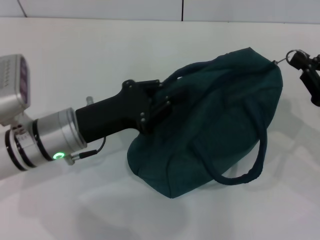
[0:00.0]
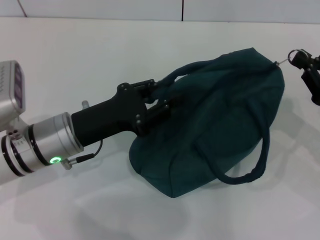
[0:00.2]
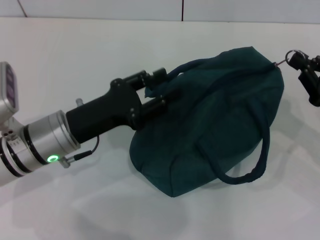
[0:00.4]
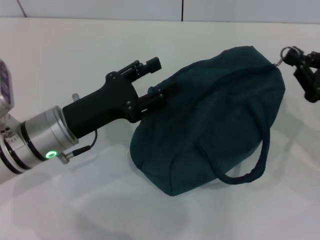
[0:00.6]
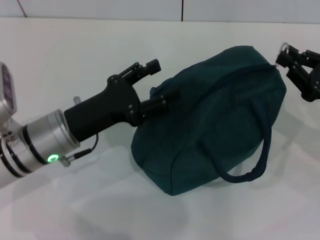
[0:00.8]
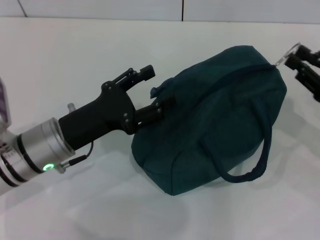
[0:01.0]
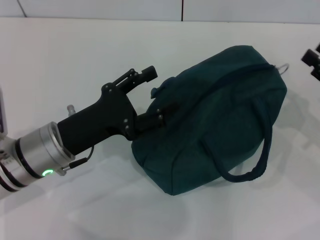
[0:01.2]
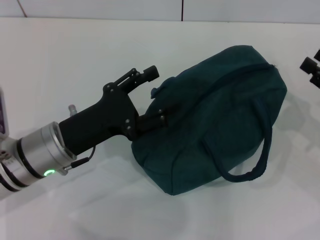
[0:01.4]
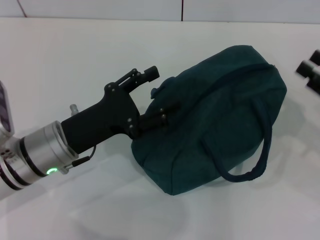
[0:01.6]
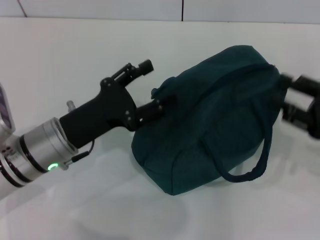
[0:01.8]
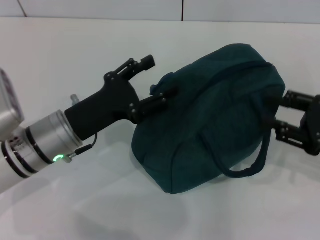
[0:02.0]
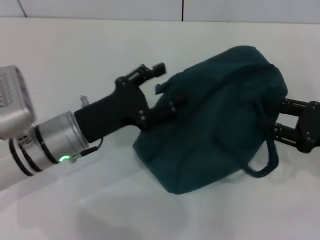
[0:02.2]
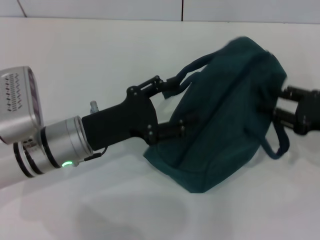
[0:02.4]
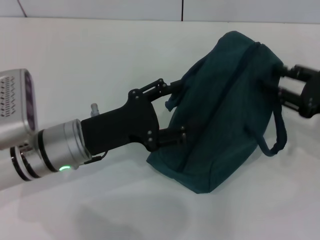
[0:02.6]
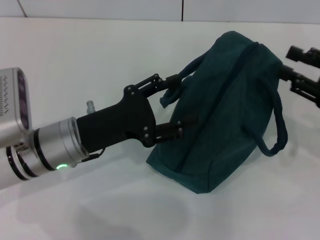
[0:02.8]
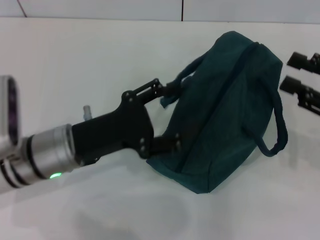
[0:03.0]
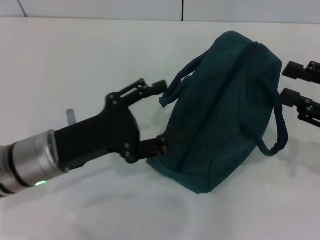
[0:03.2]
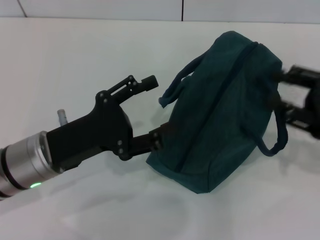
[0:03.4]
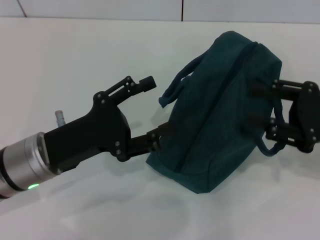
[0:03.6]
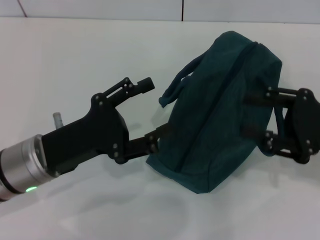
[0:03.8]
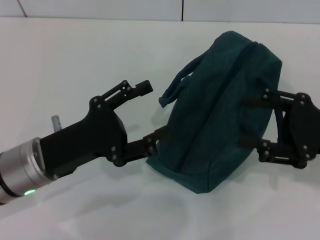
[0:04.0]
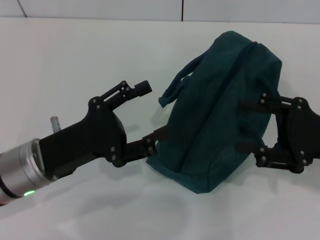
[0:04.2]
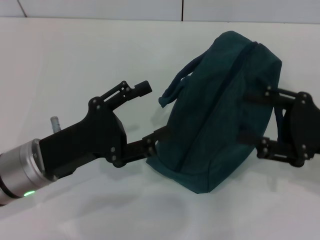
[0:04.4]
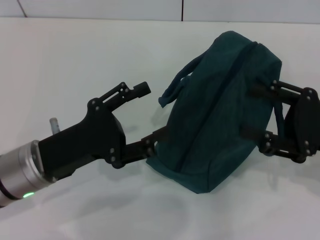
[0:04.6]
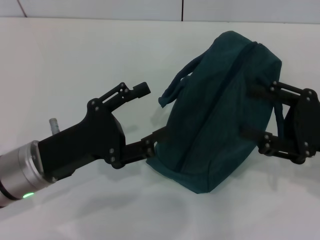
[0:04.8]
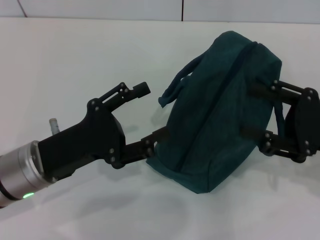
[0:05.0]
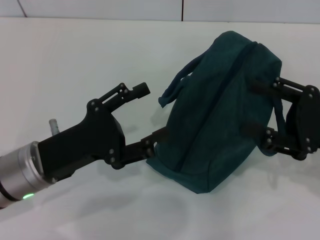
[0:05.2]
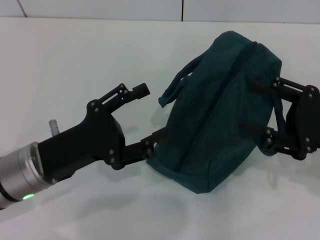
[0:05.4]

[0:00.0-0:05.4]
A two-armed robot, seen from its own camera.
Step, 0:00.8 to 0:02.6: Zip up the lunch bag with your right hand.
0:00.0 to 0:01.4: The right gripper opens. The left gripper opens up.
0:02.8 to 0:04.0: The right gripper ends up about 5 cm from where it was.
0:04.0 to 0:05.4: The grippers move only a little.

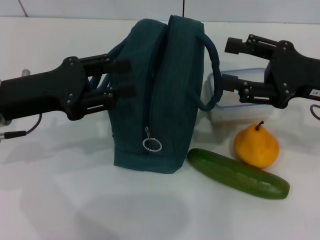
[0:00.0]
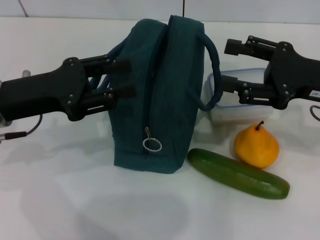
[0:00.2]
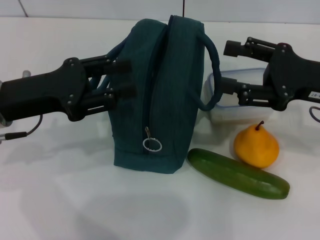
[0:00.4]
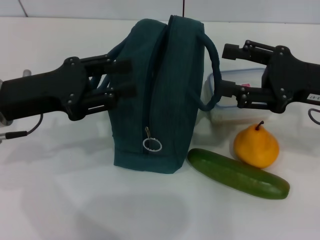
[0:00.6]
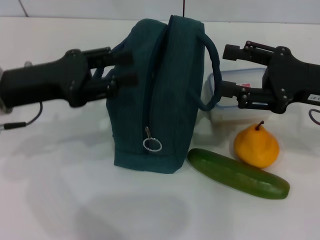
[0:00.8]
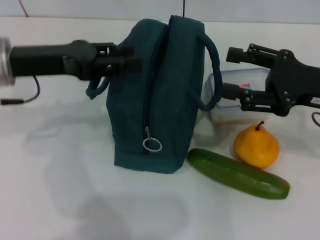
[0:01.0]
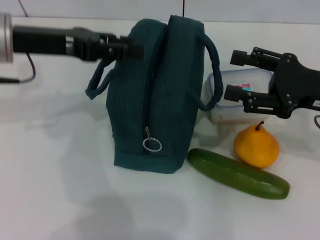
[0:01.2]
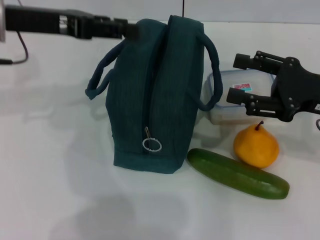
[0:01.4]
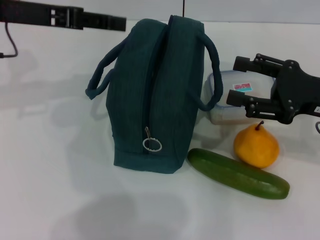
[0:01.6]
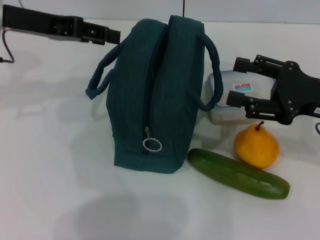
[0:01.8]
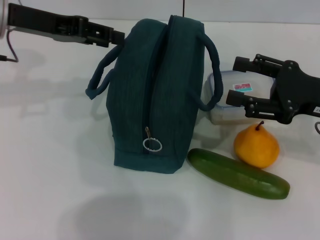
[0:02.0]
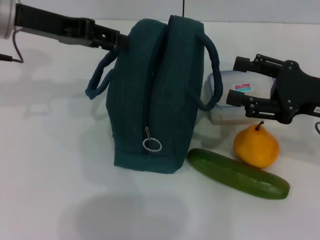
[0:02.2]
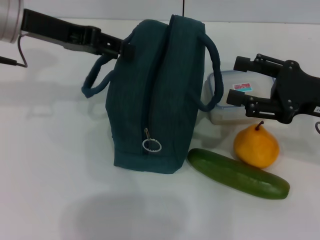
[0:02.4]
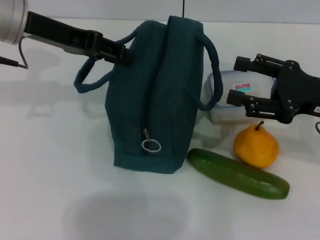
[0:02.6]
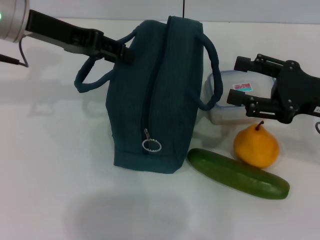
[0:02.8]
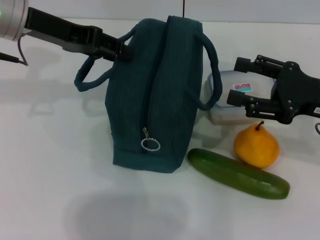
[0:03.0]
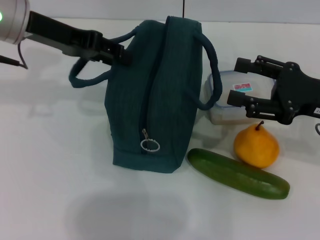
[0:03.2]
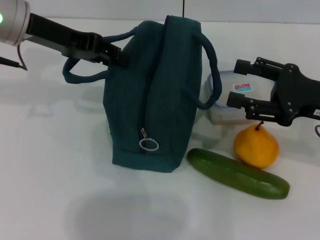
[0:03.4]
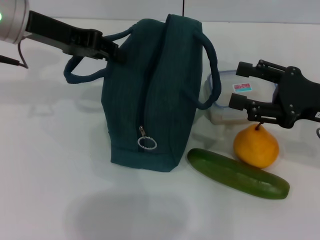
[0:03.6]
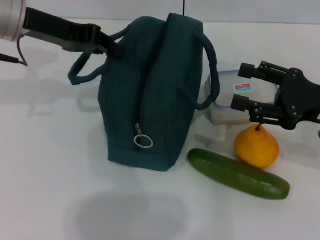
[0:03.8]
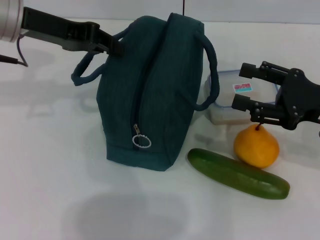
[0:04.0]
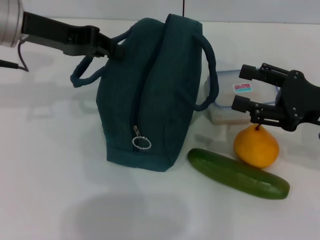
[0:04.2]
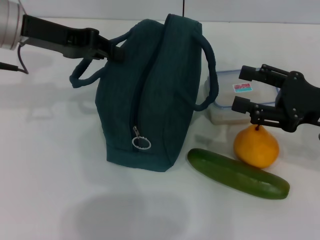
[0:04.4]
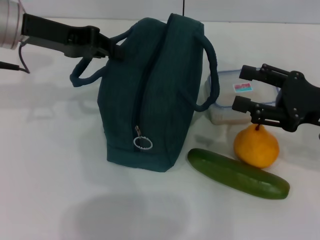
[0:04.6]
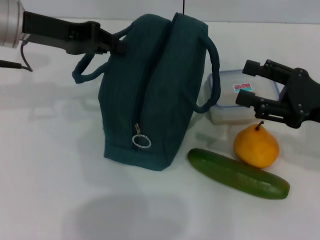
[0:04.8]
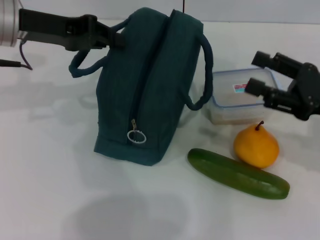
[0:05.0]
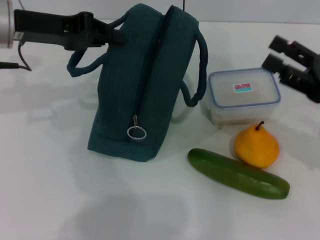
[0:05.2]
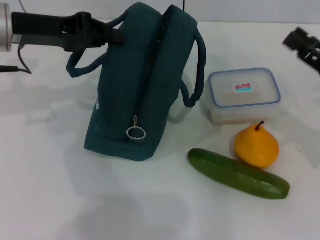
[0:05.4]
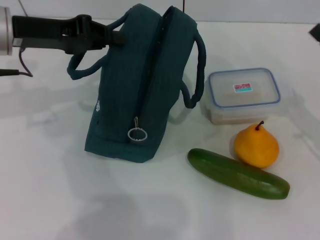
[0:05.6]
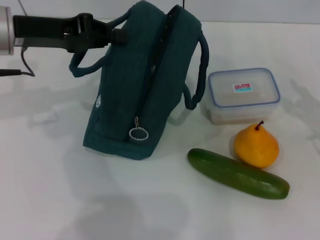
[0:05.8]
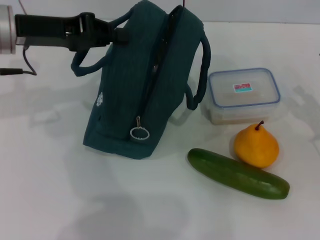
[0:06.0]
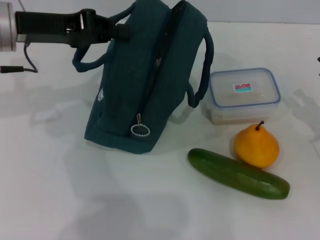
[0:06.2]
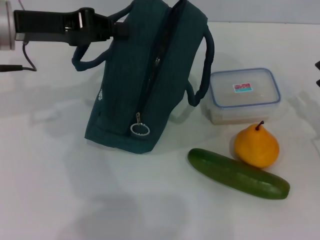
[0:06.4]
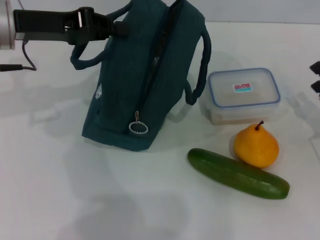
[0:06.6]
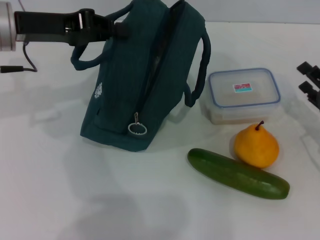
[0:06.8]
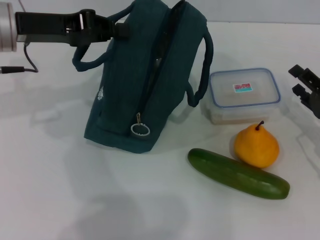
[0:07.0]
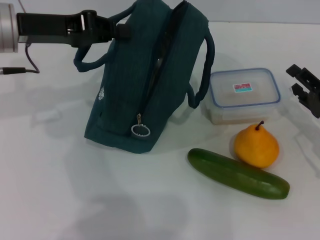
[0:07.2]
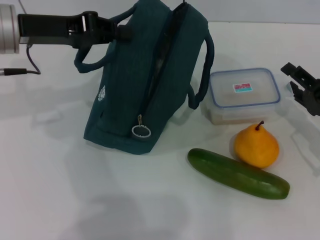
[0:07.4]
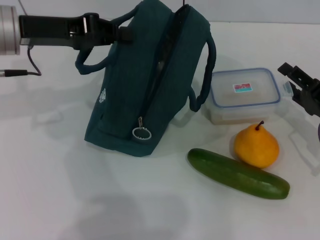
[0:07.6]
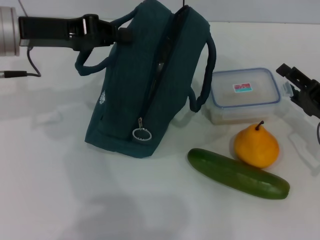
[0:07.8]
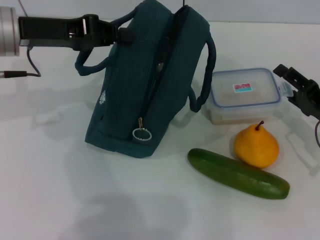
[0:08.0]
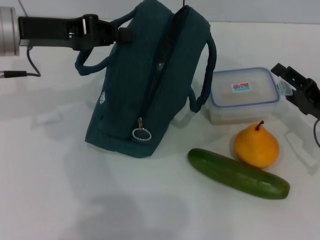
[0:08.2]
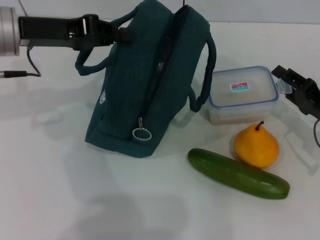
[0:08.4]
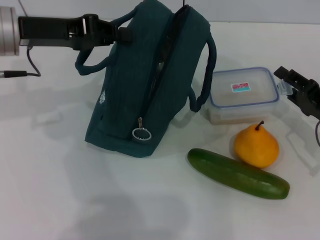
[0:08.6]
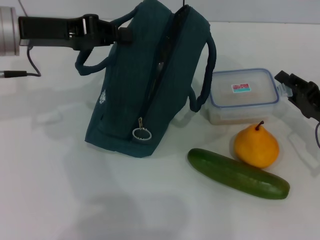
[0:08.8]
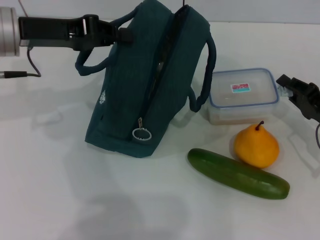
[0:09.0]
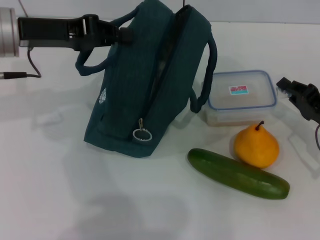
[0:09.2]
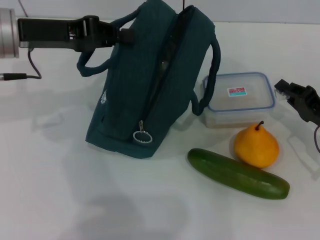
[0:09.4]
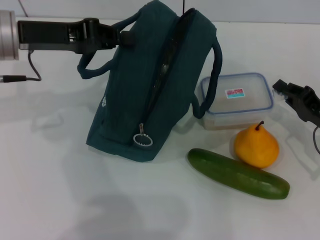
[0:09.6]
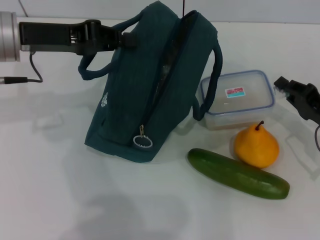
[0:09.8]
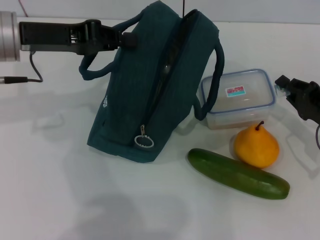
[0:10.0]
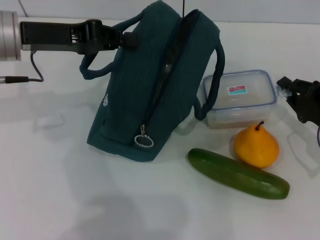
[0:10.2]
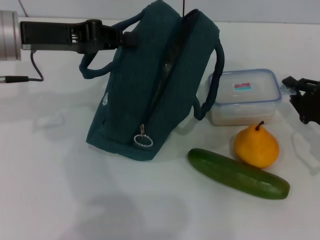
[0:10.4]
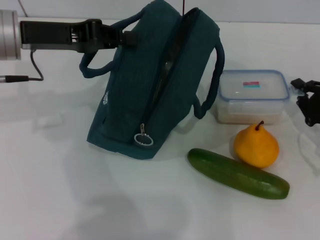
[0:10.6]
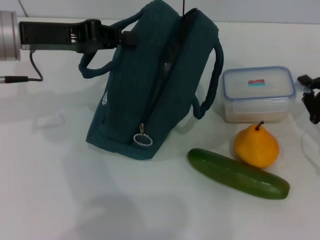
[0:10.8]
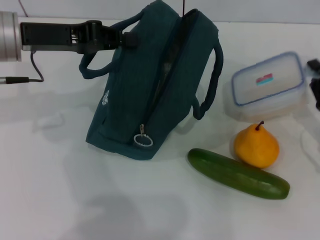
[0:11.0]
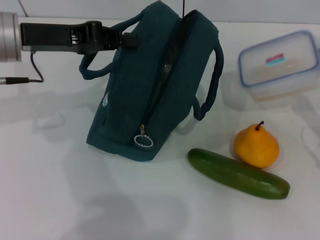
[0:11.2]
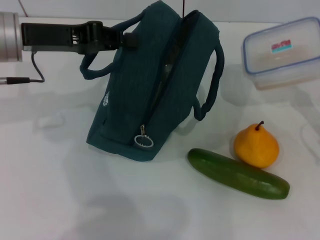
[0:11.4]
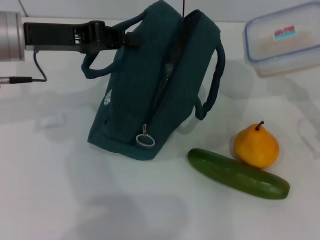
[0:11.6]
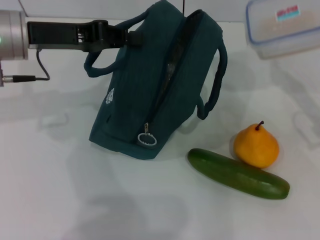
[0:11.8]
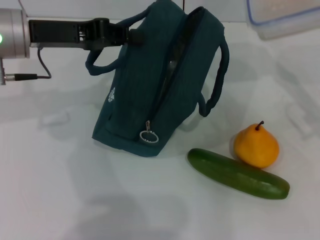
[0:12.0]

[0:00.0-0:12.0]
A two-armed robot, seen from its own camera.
Step, 0:00.0 to 0:05.4: Hold the lunch bag with your left hand.
Step, 0:05.8 to 0:09.8: Pick up the lunch box with your right hand.
0:00.0 to 0:01.6: The left gripper travels upward and forward by roughly 10 cm.
0:01.6 to 0:03.0: There are only small adjustments of the grippers.
0:03.0 to 0:04.4: The left gripper closes.
0:04.4 to 0:06.0: The right gripper moves downward and to the right, roughly 10 cm.
0:06.0 to 0:07.6: The grippers stay close to where they were, moving slightly.
0:07.6 to 0:09.0: Neither gripper changes place.
0:09.0 to 0:10.4: The right gripper closes.
0:10.4 to 0:12.0: The right gripper goes approximately 10 cm upward.

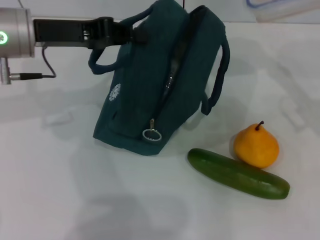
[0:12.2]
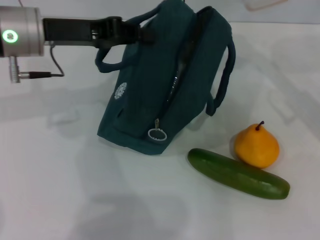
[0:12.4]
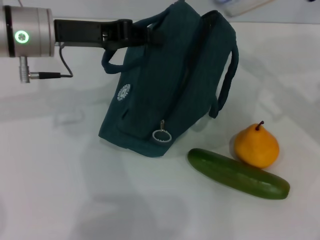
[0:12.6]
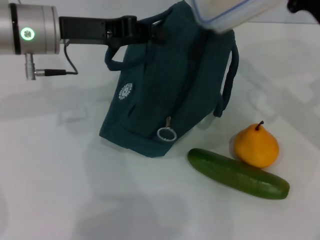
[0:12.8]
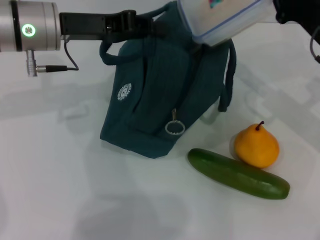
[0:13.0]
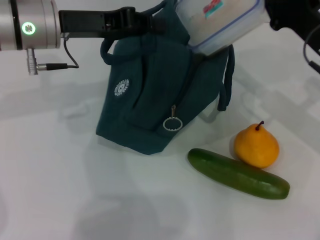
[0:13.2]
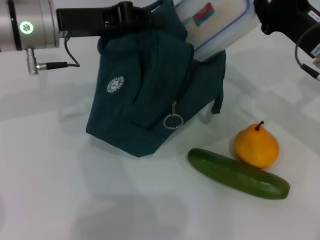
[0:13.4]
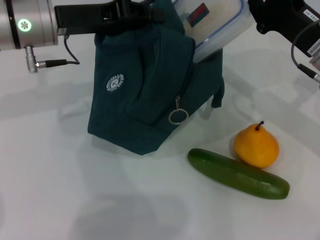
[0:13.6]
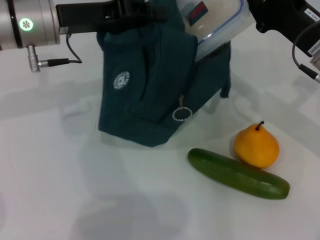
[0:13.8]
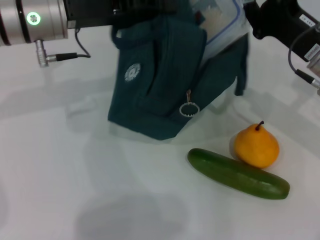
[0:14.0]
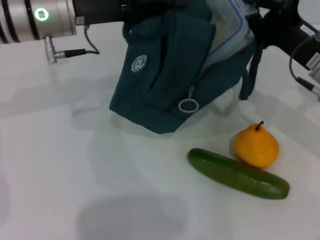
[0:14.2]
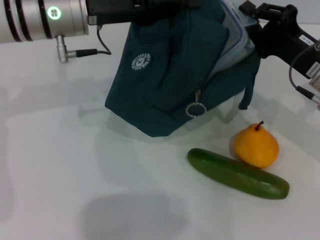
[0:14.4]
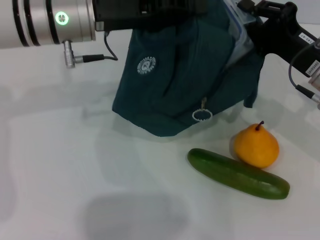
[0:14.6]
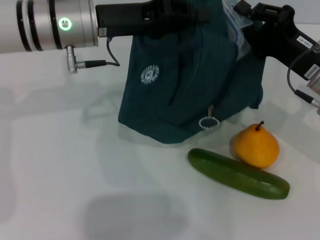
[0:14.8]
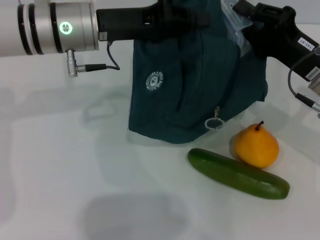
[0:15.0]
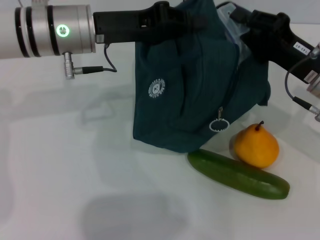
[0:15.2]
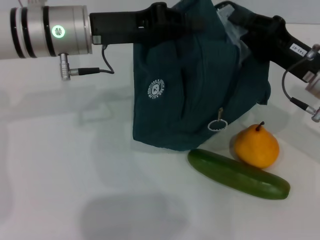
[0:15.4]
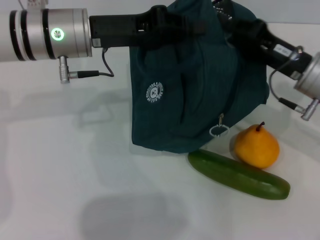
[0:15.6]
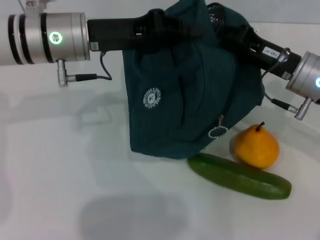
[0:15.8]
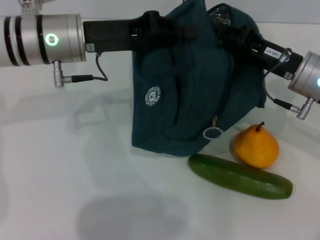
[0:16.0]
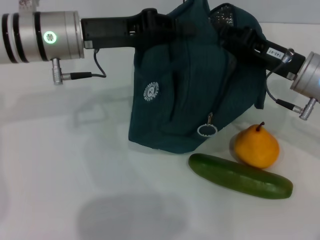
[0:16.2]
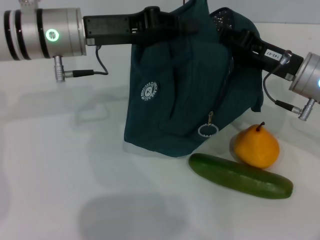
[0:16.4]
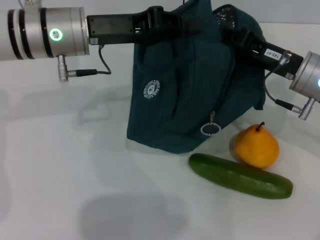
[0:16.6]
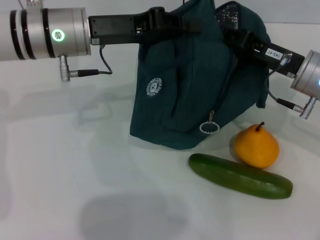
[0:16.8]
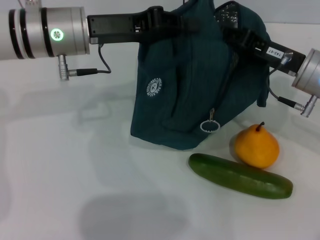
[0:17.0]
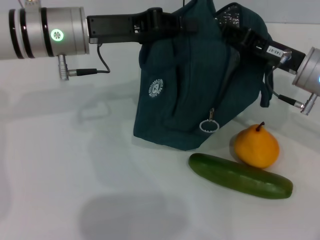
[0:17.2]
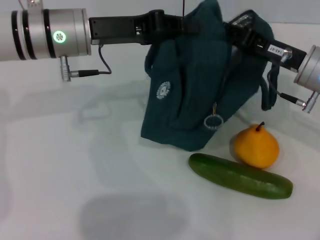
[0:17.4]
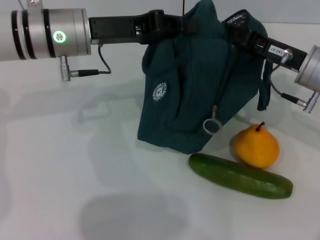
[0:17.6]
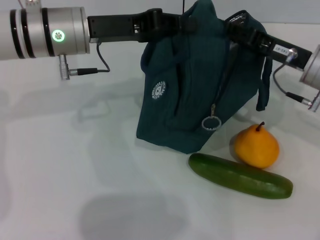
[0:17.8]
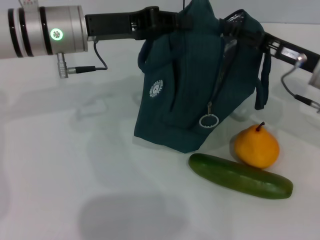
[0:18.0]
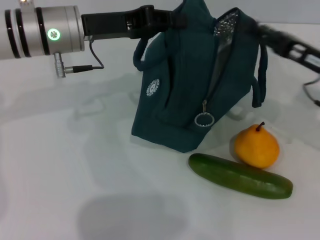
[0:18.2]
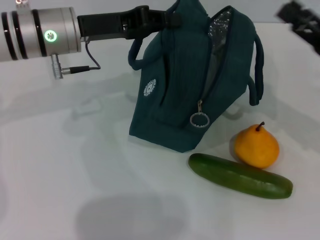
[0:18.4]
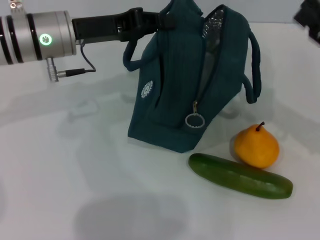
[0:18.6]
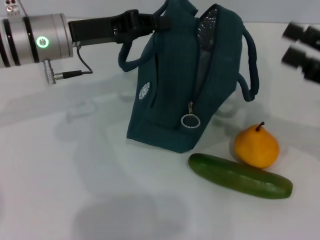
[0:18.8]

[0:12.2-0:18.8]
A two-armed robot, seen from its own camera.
Step, 0:12.2 to 0:18.4: Place the lunch box into the lunch bag with your right hand.
0:12.2 to 0:13.8: The right gripper travels to the left by about 5 cm.
0:17.2 to 0:18.8: The right gripper is displaced to the right and backward by approximately 10 cm, and opens up.
